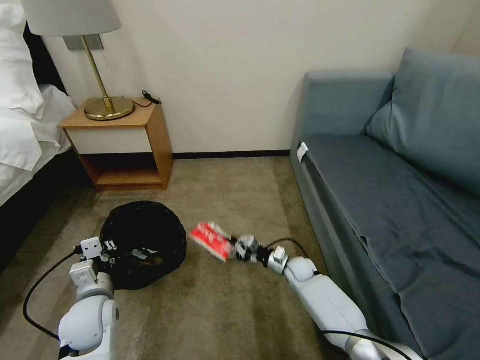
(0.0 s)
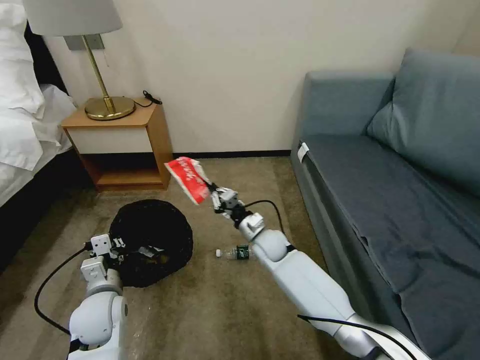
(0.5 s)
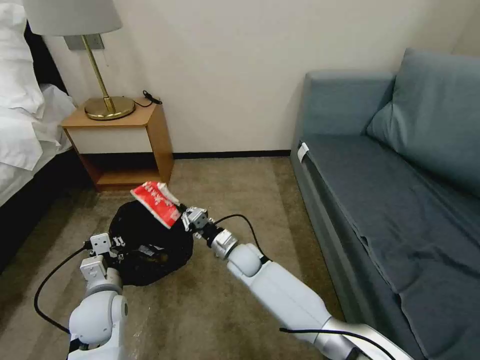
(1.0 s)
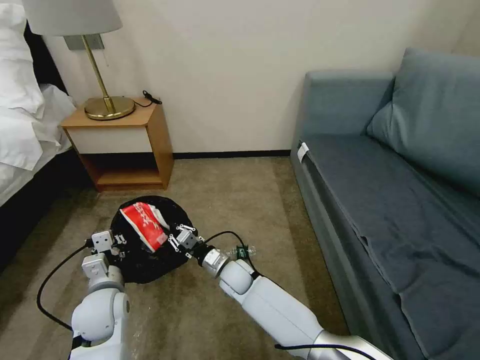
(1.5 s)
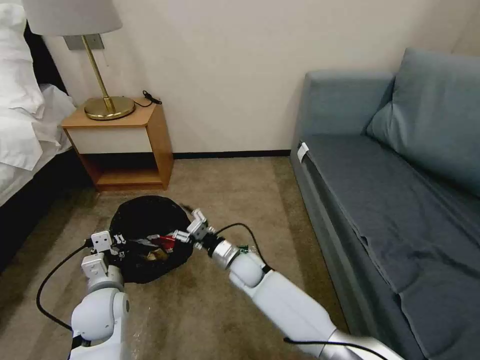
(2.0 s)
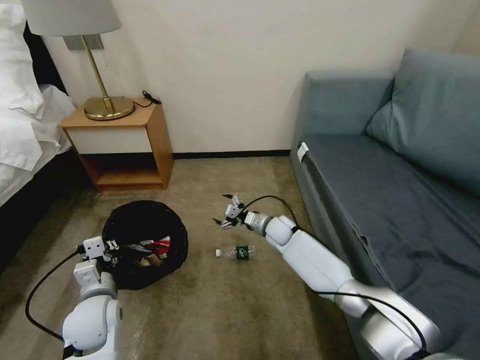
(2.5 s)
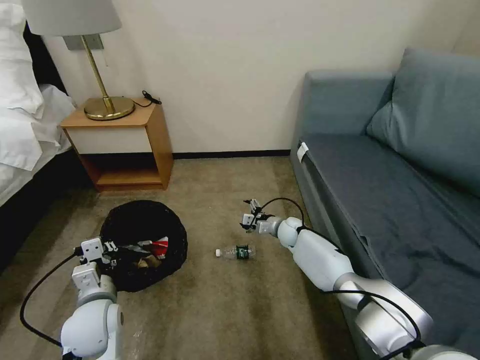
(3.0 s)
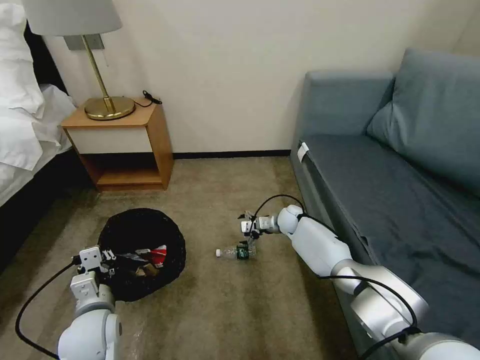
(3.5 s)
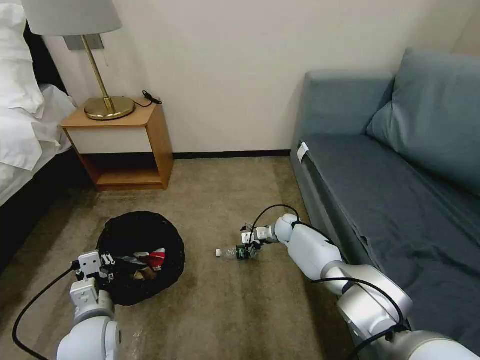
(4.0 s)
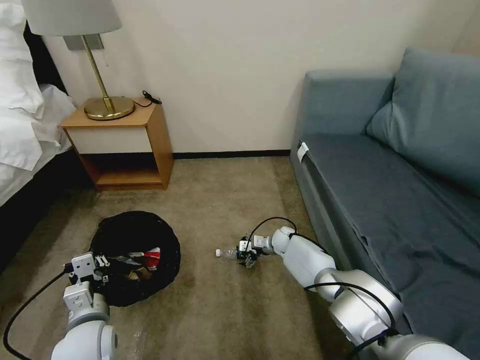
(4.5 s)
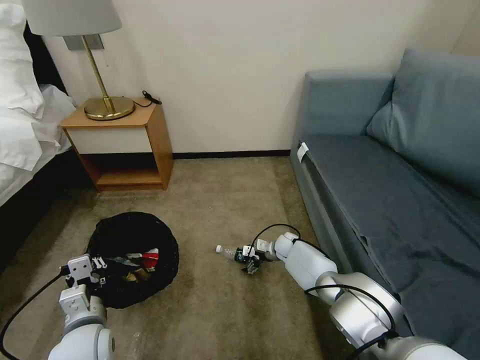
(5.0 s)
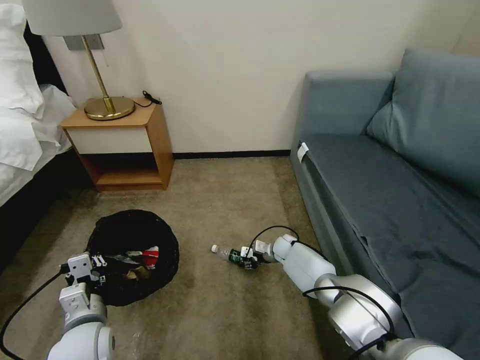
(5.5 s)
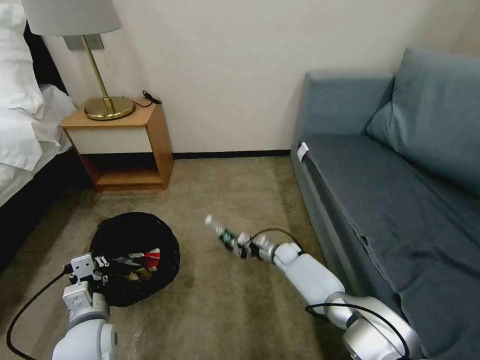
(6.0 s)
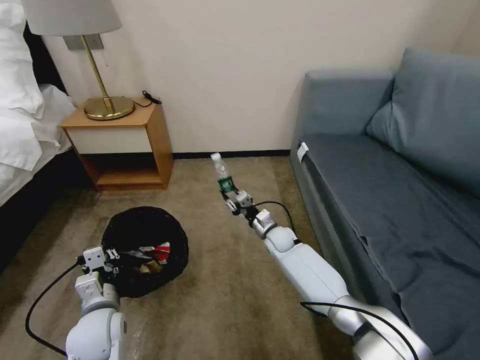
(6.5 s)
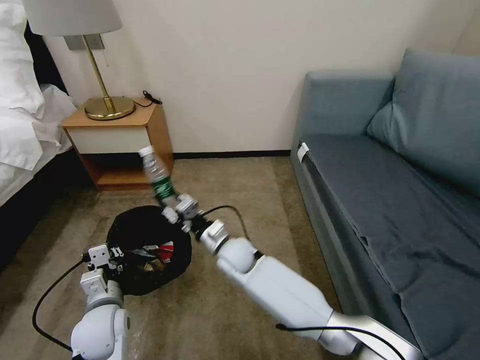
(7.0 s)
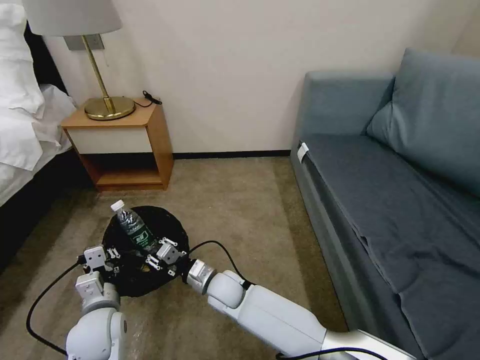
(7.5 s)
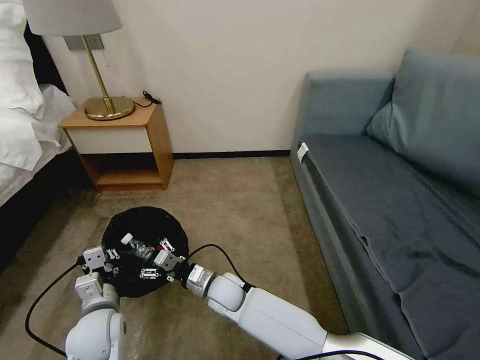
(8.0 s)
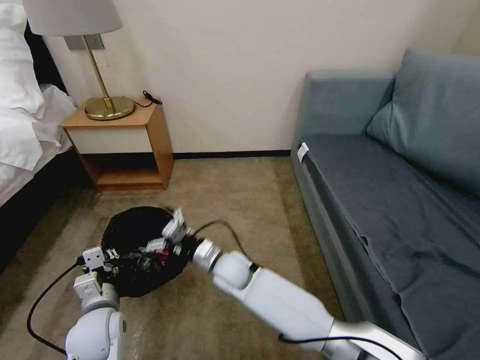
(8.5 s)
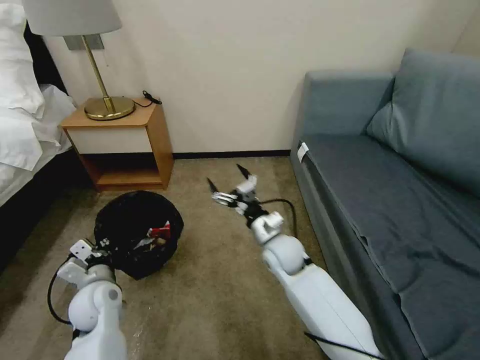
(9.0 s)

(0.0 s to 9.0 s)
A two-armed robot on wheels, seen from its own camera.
Task of the whole recording: Pick up the trash bin, then pick up the garbage on the floor and place it into the trash bin.
0.0 s - 2.0 s: The right gripper heads to the left and upward, covering roughly 20 cm, and opens.
2.0 s - 4.5 s: The right gripper is displaced to the right, forward and downward by some 20 cm. Meanwhile the left gripper is displaced backward by about 5 cm.
4.5 s - 7.0 s: The right gripper shifts about 25 cm to the left, backward and upward, and closes its fingers.
7.0 s - 9.0 s: The left gripper moves forward, approximately 5 cm. The right gripper heads to the right, covering approximately 15 cm, and opens up.

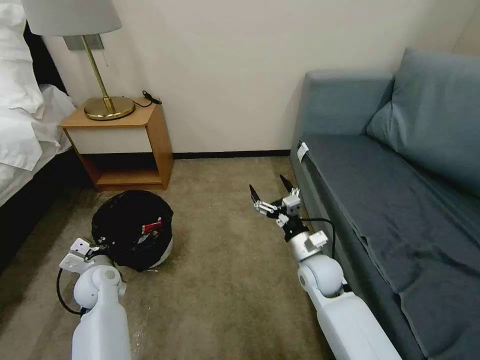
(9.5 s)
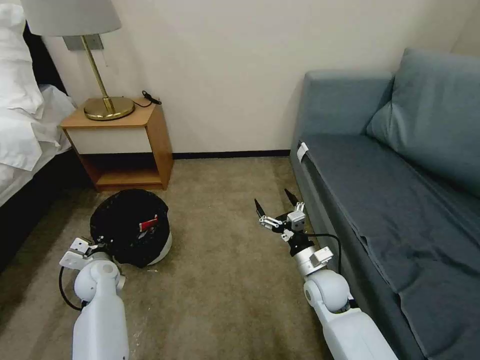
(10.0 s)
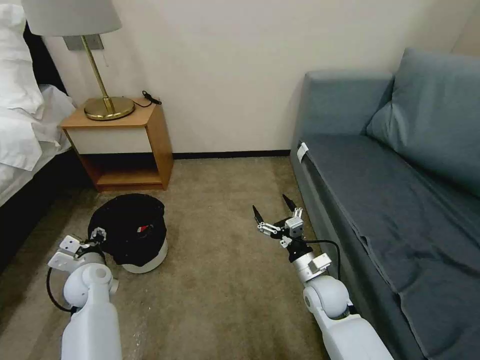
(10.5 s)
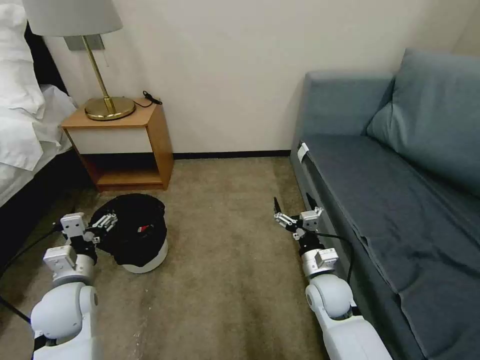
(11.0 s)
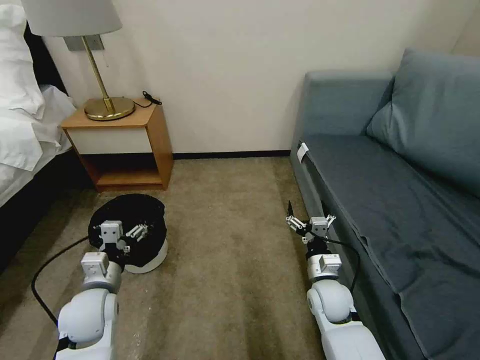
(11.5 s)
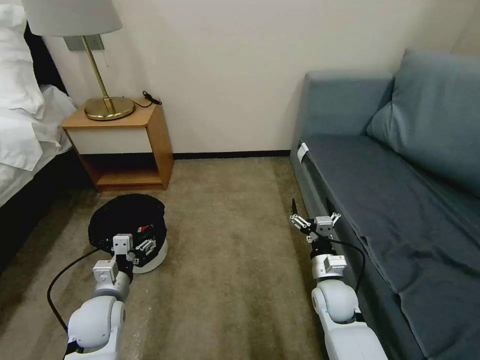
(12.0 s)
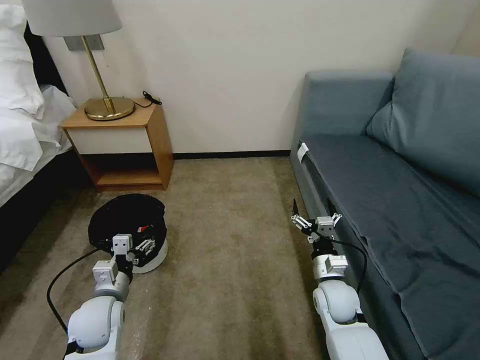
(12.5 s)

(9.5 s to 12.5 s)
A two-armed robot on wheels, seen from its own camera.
Task of the whole recording: Pick up the trash bin, then pick up the garbage on the floor and place it into the trash bin.
9.5 s - 11.0 s: The left gripper is displaced upward and backward by some 10 cm, and opens up.
11.0 s - 12.5 s: The left gripper goes approximately 5 cm downward.

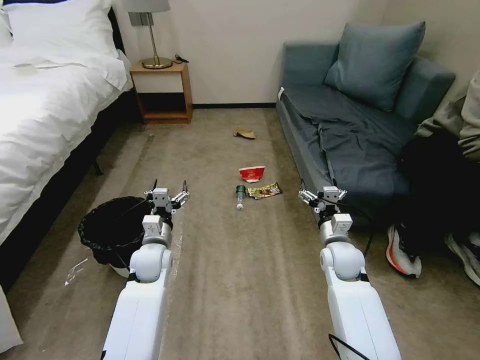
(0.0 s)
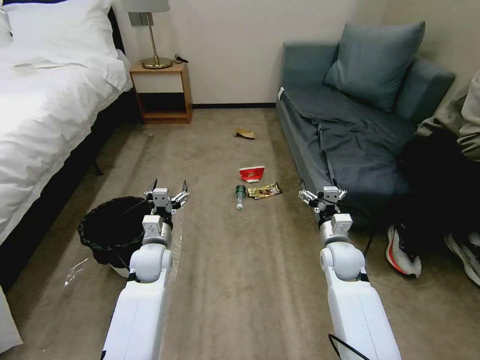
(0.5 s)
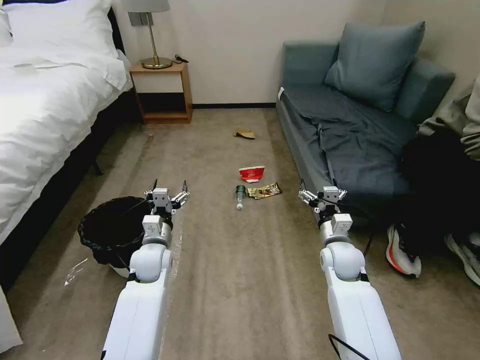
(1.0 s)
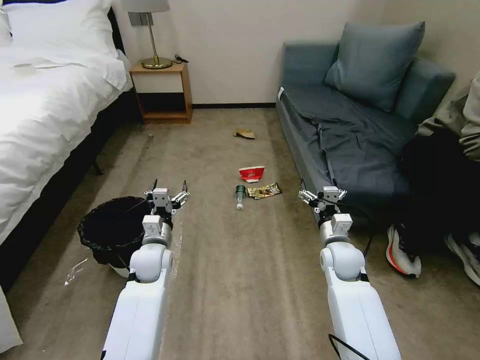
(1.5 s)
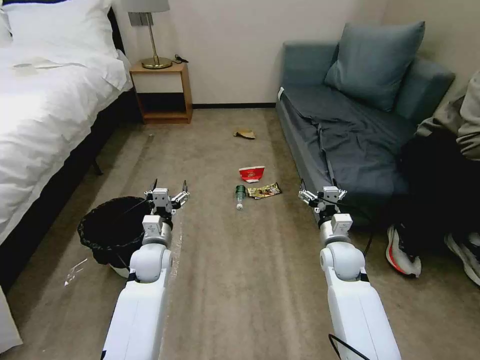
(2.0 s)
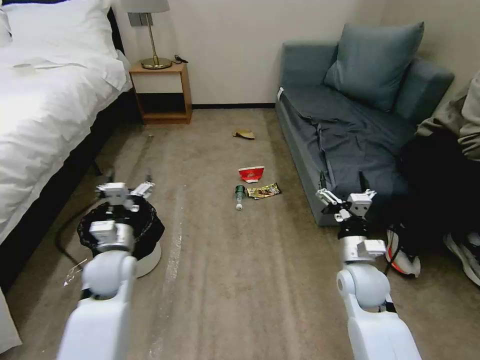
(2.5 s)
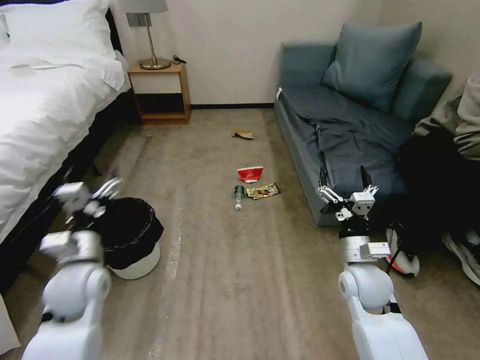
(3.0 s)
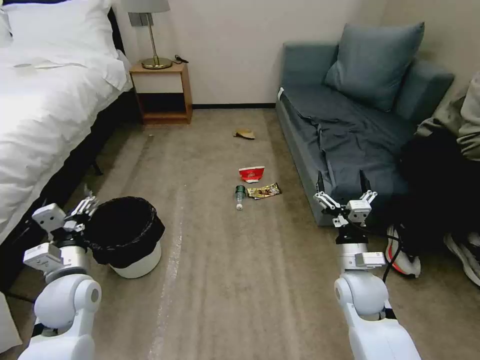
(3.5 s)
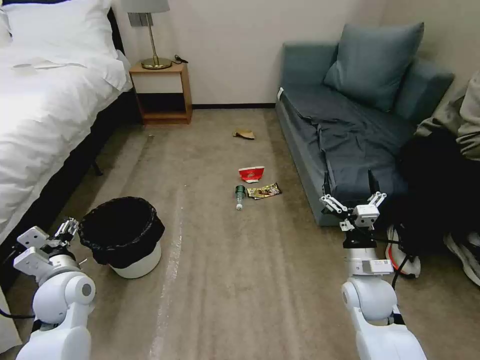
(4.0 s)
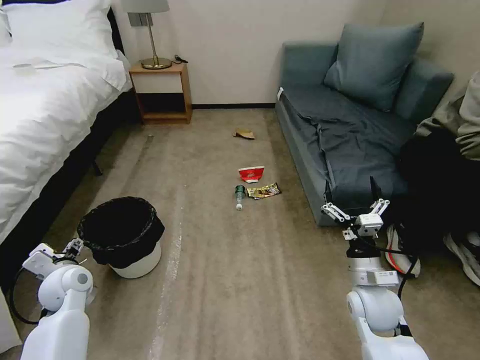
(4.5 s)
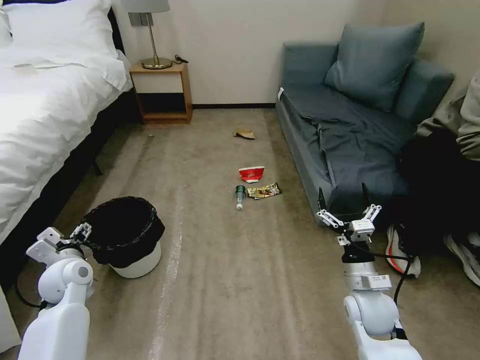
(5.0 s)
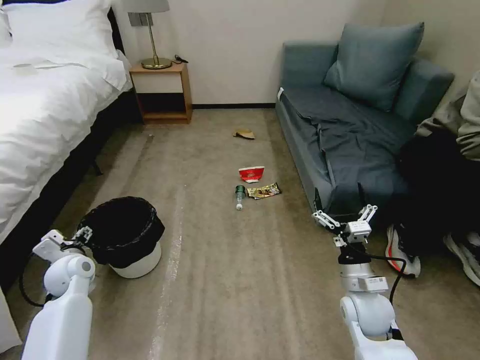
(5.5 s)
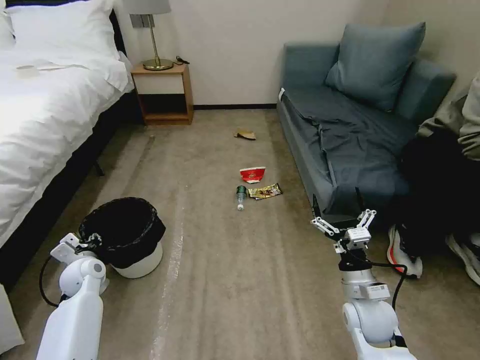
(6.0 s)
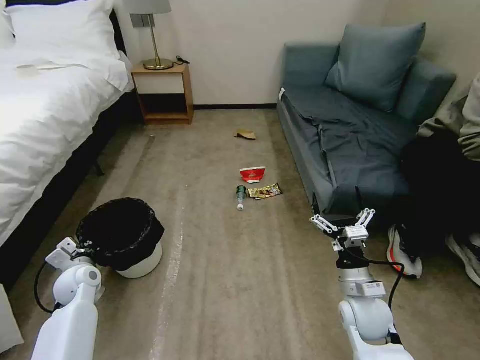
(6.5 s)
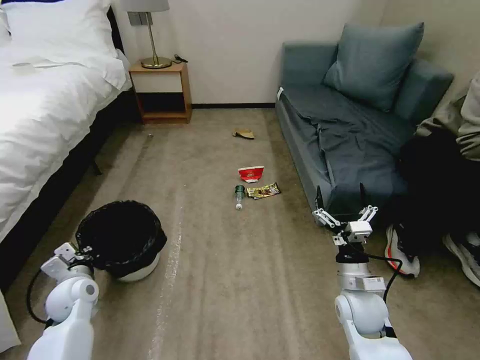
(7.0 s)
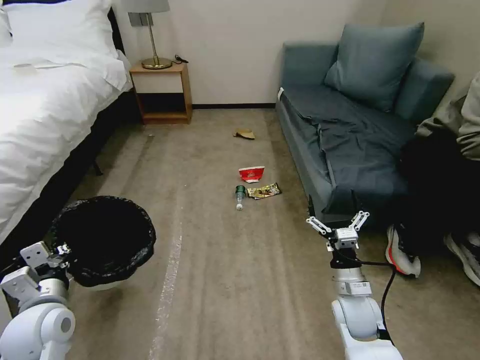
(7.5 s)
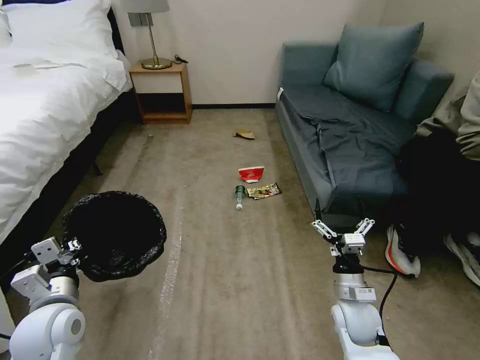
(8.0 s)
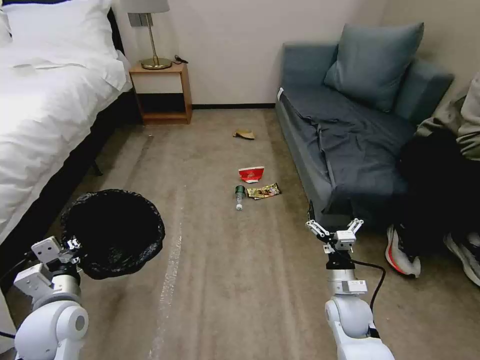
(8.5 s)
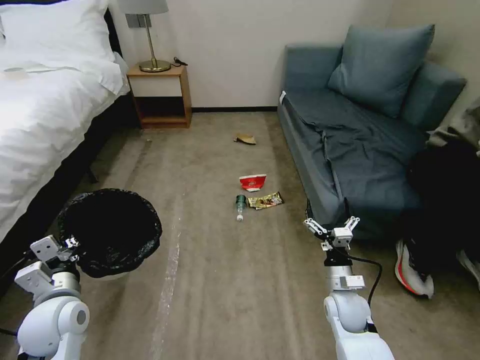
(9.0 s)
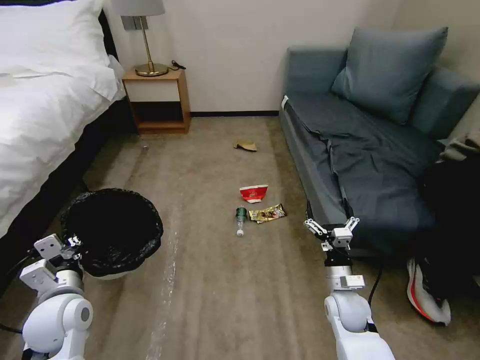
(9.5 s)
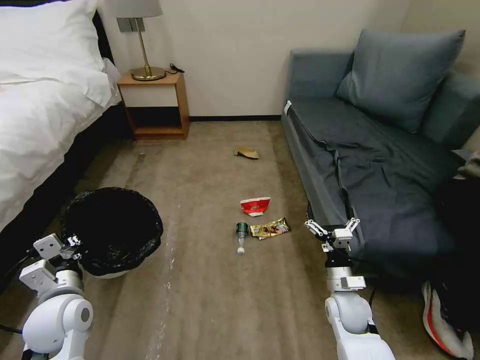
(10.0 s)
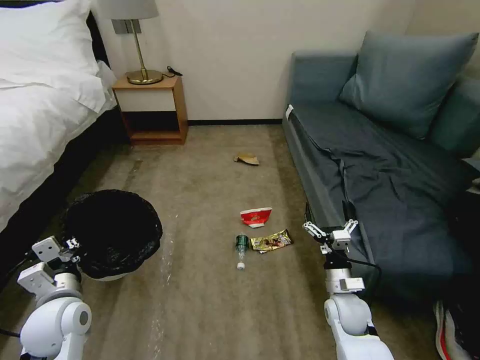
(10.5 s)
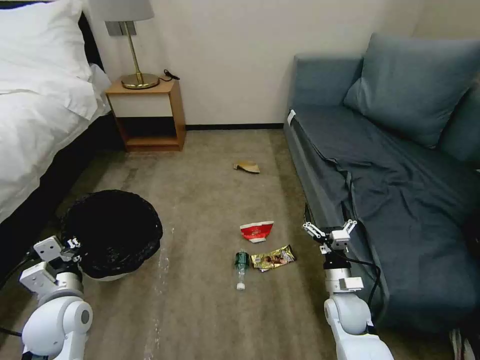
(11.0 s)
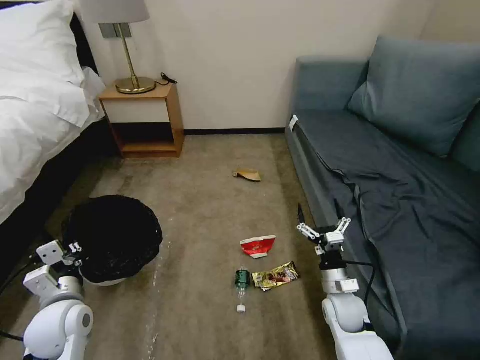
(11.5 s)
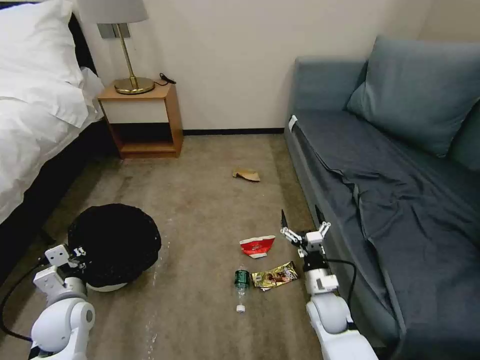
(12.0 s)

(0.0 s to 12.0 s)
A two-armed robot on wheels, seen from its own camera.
Task of the whole recording: Pick up the trash bin, then pick up the garbage on the floor and place it into the trash bin.
2.0 s - 4.0 s: The right gripper moves backward, approximately 10 cm. Meanwhile the left gripper shifts about 20 cm to the left, backward and upward.
4.0 s - 6.0 s: The left gripper heads downward and forward, covering about 10 cm, and closes its fingers.
6.0 s - 8.0 s: The left gripper shifts roughly 20 cm backward, upward and to the right, and closes its fingers.
10.0 s - 12.0 s: The left gripper shifts approximately 5 cm downward.

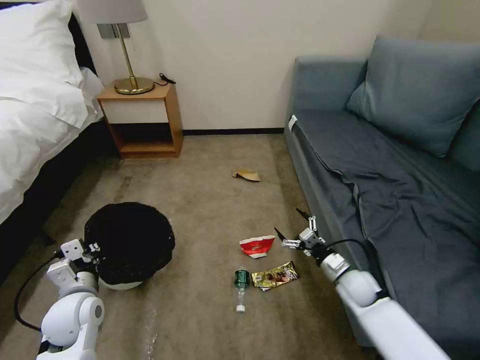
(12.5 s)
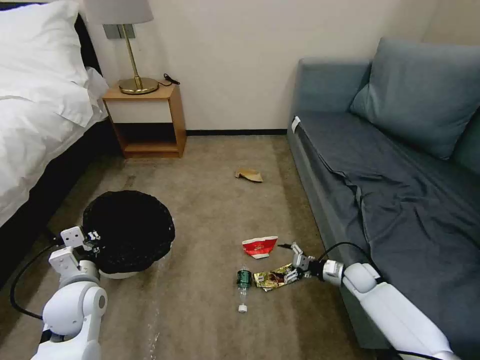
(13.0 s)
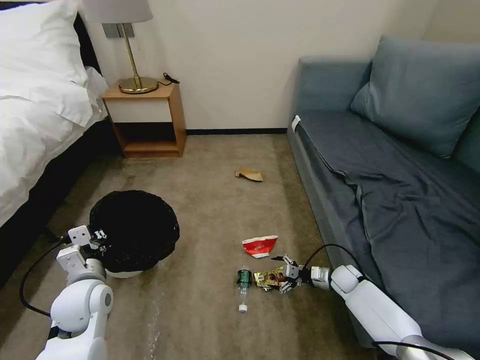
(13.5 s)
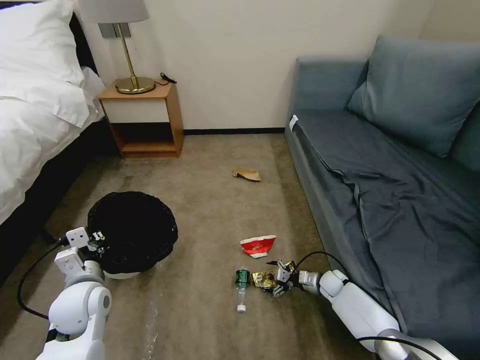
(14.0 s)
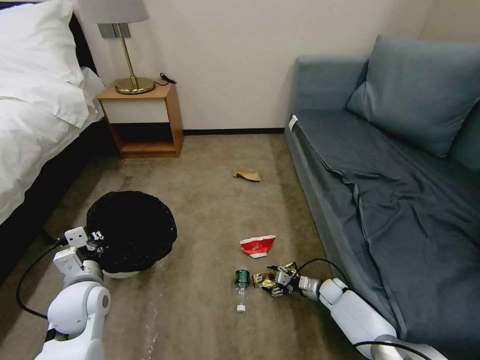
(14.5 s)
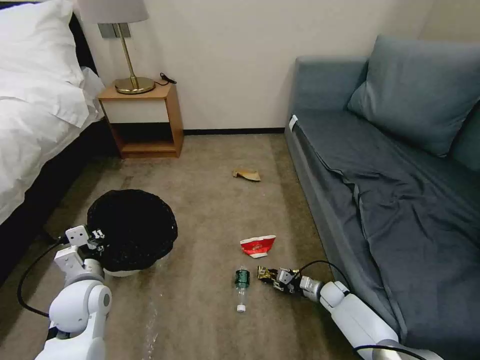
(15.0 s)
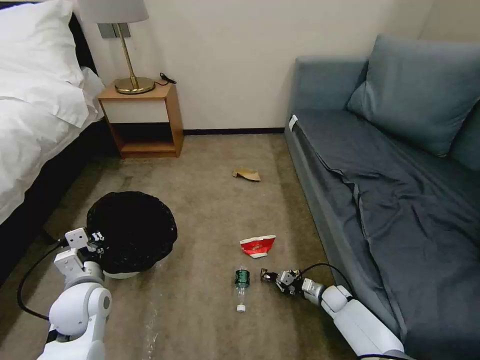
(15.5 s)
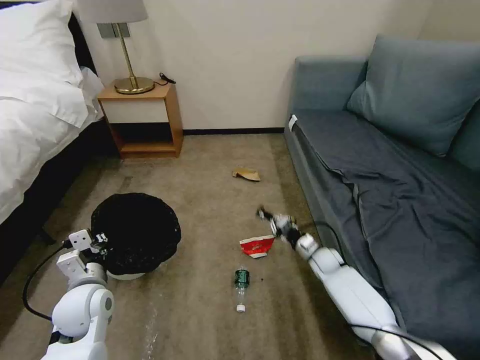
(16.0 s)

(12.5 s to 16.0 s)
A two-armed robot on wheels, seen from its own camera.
Task of the whole recording: Pick up the trash bin, then pick up the garbage on the floor and place it into the trash bin.
12.5 s - 14.5 s: The right gripper shifts roughly 15 cm downward.
14.5 s - 16.0 s: The right gripper shifts some 10 cm upward and forward, and closes up.
